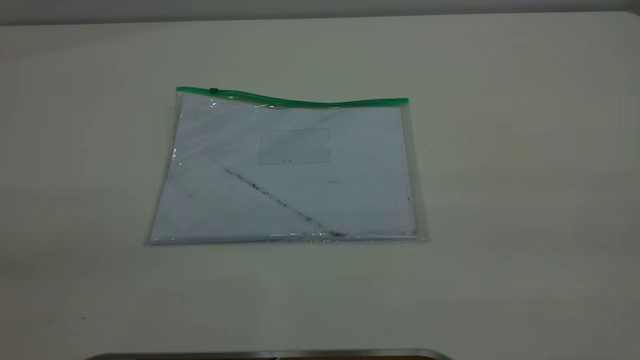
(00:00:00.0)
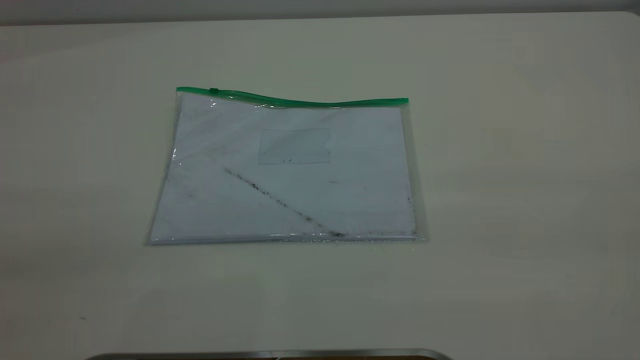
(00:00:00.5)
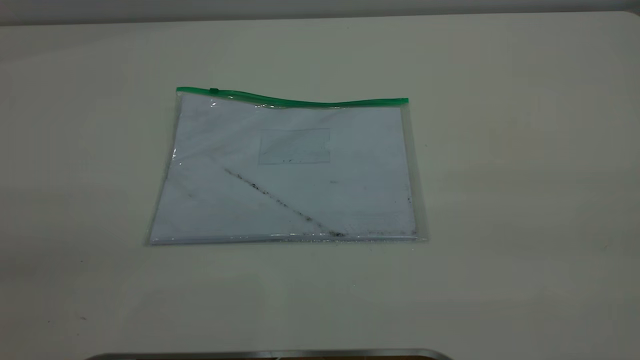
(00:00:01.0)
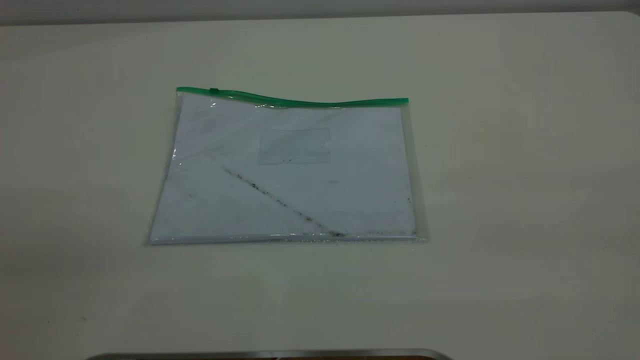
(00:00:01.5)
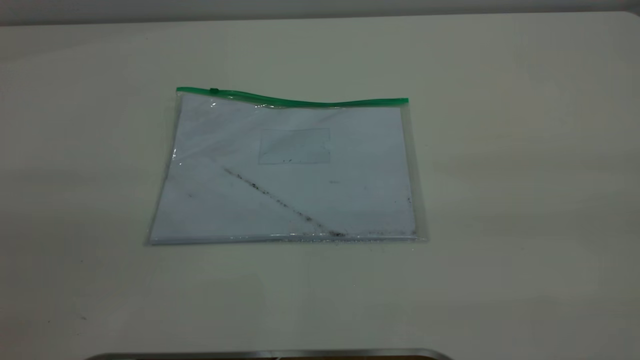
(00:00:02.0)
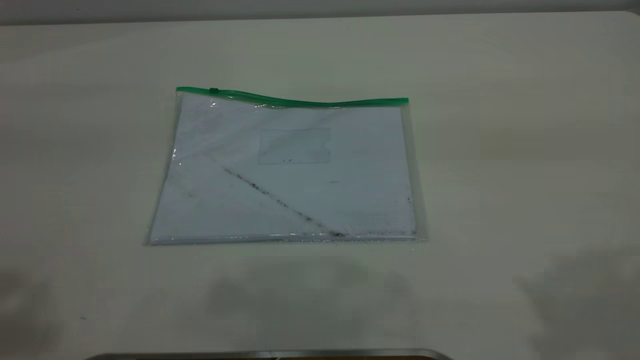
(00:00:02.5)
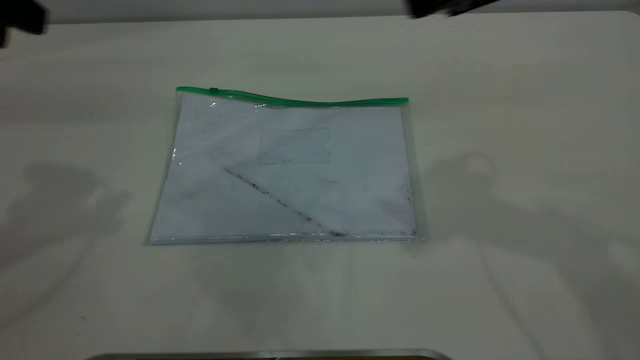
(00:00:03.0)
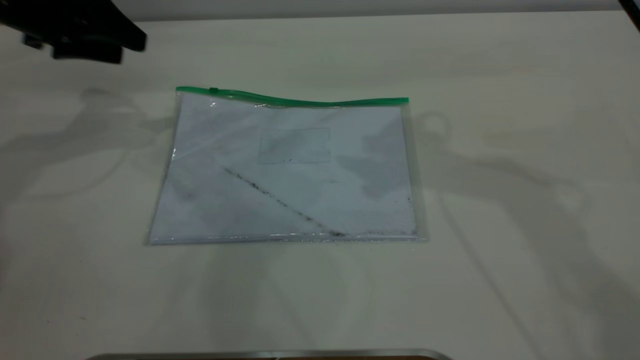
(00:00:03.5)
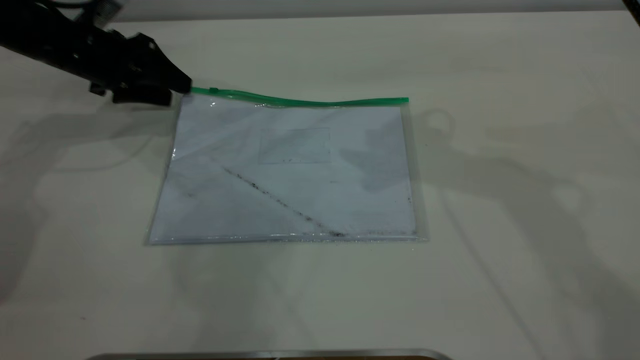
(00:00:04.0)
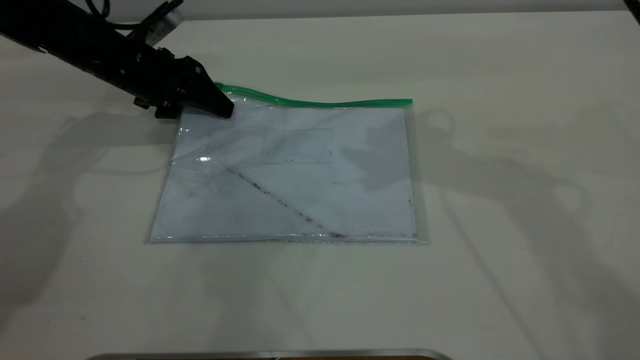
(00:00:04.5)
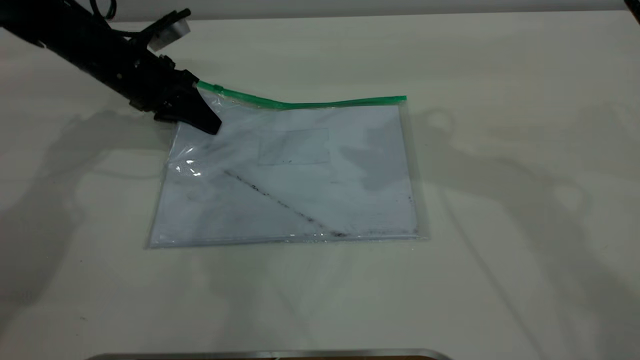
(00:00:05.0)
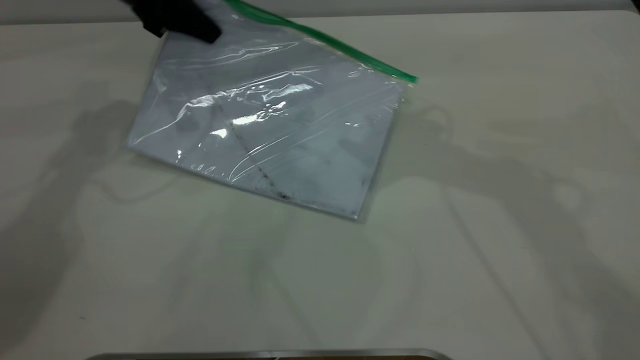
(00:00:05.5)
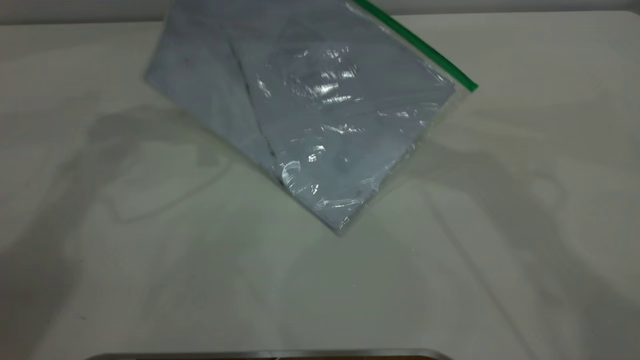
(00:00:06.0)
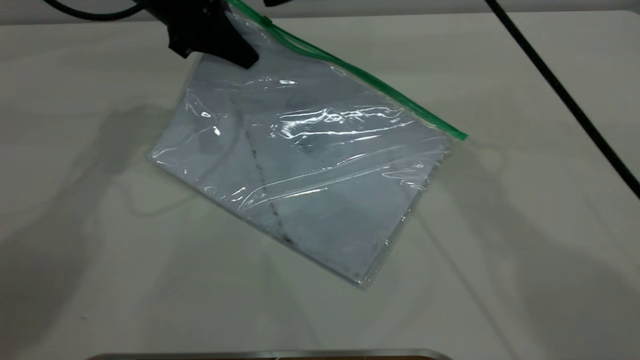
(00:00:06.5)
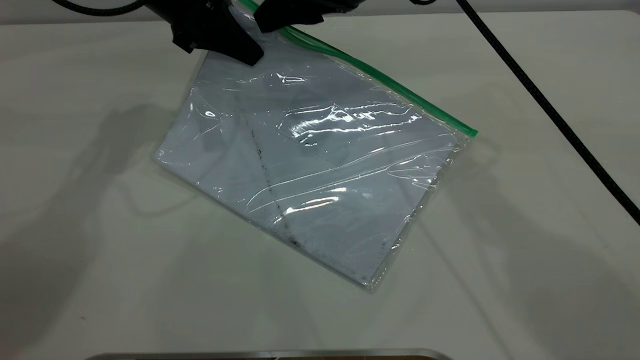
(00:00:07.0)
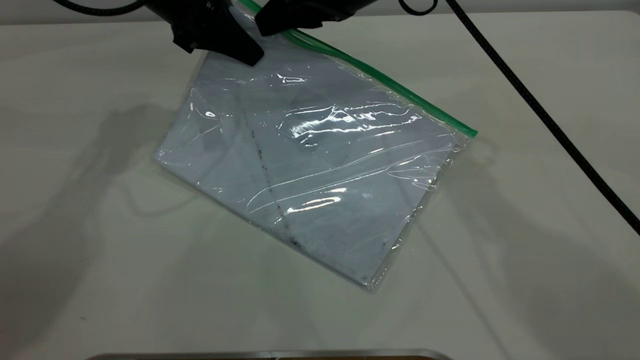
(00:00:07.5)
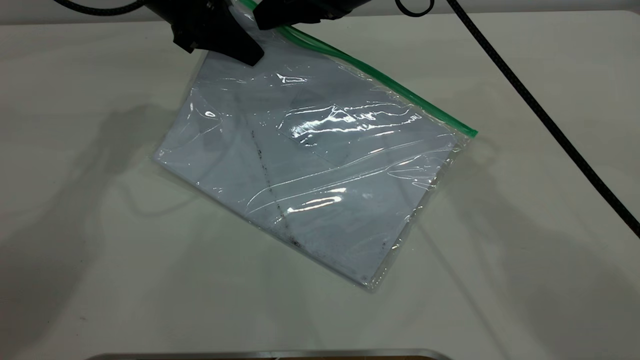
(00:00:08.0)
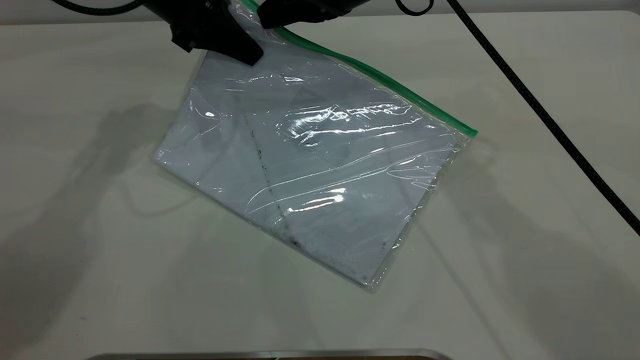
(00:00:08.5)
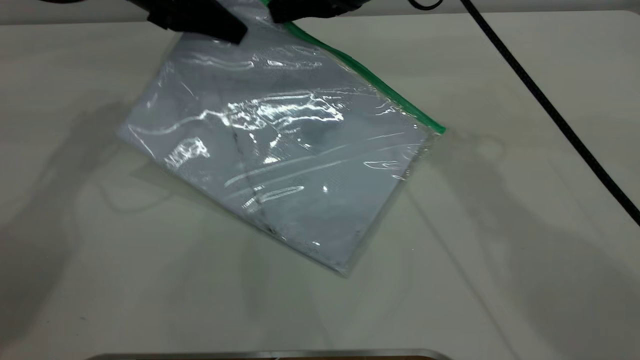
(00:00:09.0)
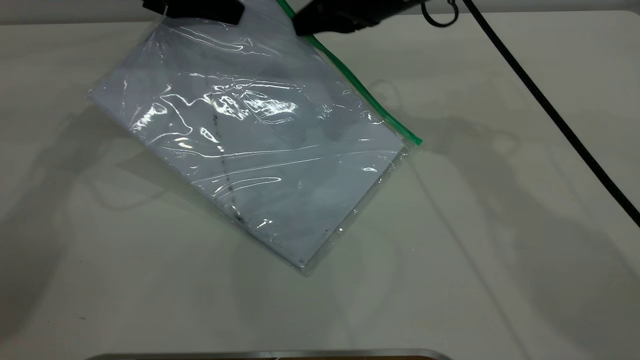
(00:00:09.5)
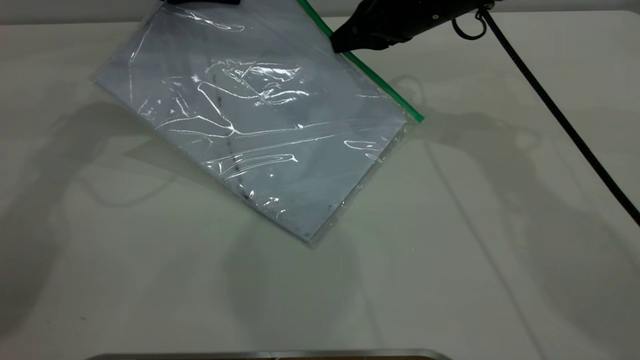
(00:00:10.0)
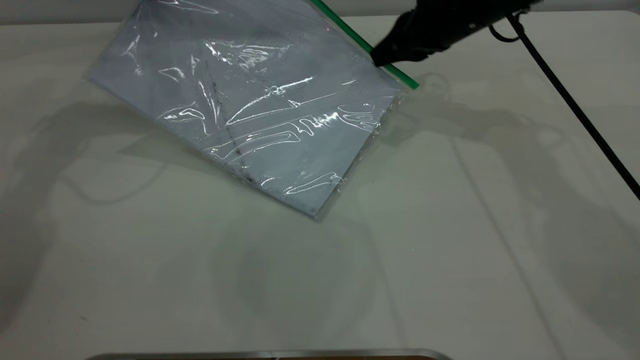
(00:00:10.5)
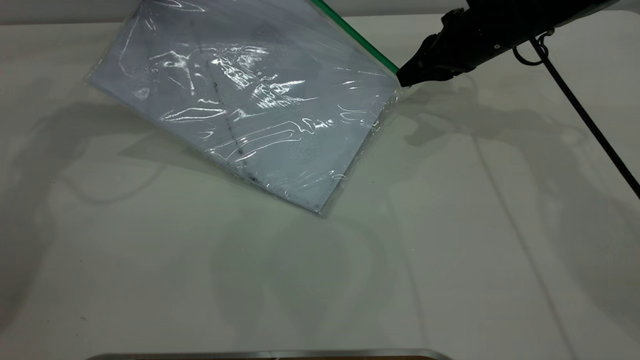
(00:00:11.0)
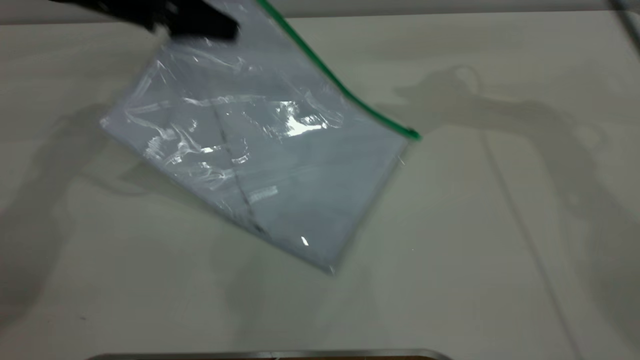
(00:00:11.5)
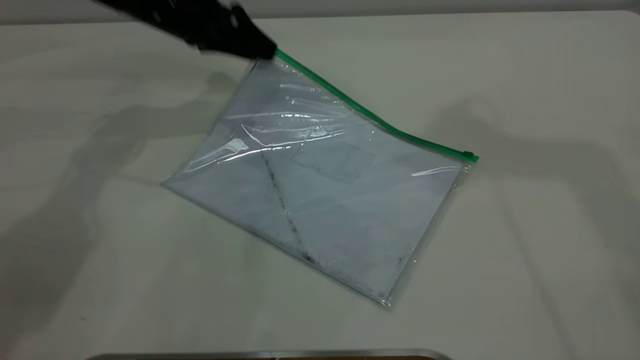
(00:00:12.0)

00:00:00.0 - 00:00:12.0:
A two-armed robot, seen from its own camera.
Step, 00:00:00.0 - 00:00:05.0: Pick up the transparent plastic bag with the left gripper.
Step, 00:00:05.5 - 00:00:11.0: Pulling up the zipper on the transparent plastic bag with the right gripper to close it.
Step, 00:00:11.5 - 00:00:12.0: Place the transparent plastic bag.
00:00:02.0 - 00:00:04.0: The left gripper moves forward and downward, roughly 60 cm.
00:00:04.0 - 00:00:06.0: The left gripper is displaced upward and to the right by roughly 20 cm, and closes up.
00:00:06.0 - 00:00:08.0: The right gripper travels downward by about 10 cm, and closes, while the left gripper goes about 5 cm downward.
00:00:08.0 - 00:00:10.0: The right gripper moves to the right and downward, roughly 10 cm, and closes. The left gripper ends up approximately 5 cm from where it was.
00:00:10.0 - 00:00:12.0: The left gripper opens up; the right gripper heads upward, covering about 30 cm, and opens up.
